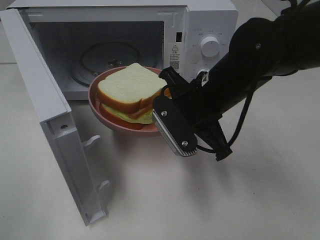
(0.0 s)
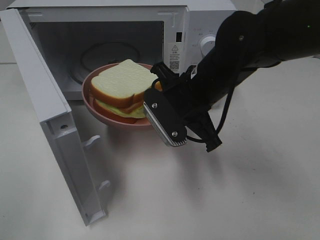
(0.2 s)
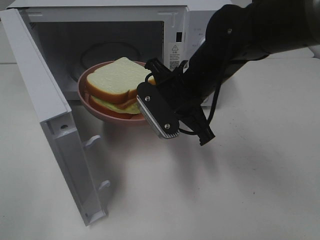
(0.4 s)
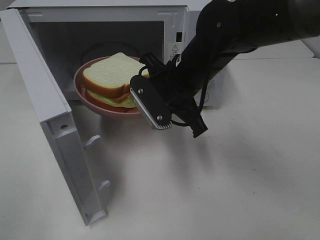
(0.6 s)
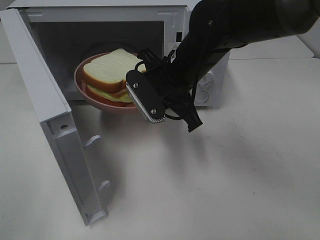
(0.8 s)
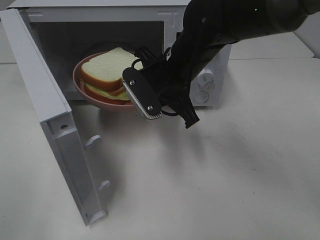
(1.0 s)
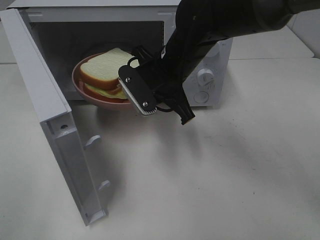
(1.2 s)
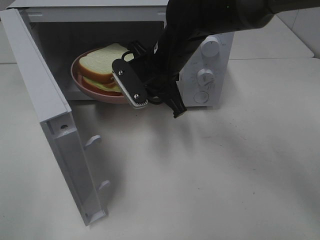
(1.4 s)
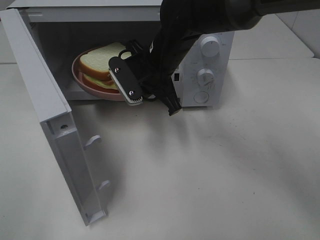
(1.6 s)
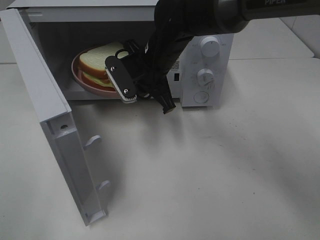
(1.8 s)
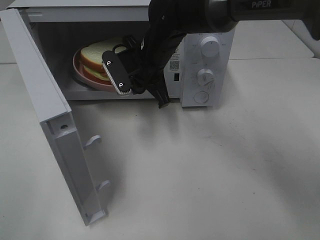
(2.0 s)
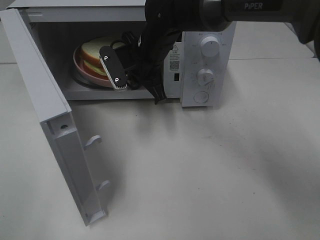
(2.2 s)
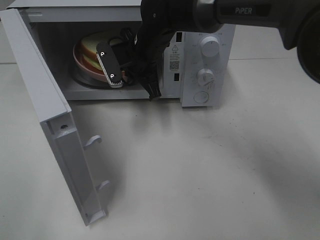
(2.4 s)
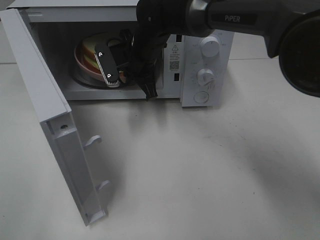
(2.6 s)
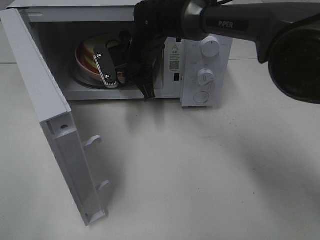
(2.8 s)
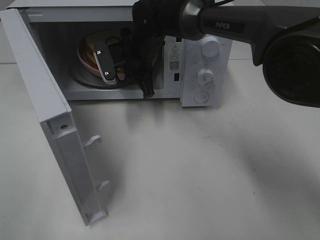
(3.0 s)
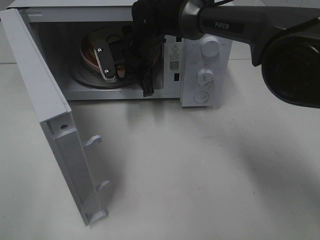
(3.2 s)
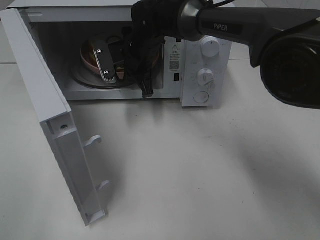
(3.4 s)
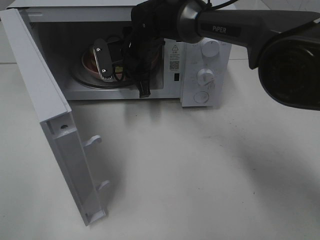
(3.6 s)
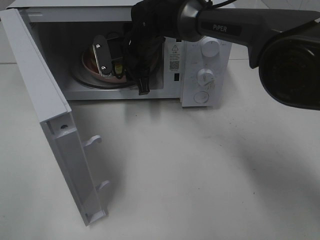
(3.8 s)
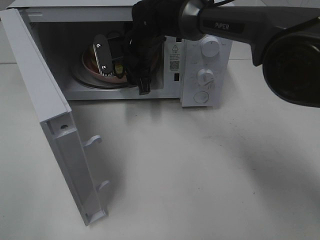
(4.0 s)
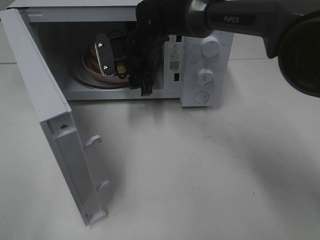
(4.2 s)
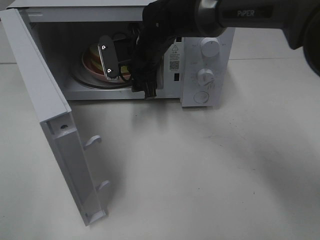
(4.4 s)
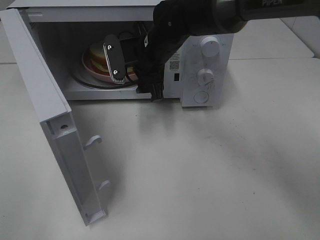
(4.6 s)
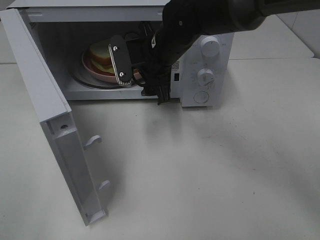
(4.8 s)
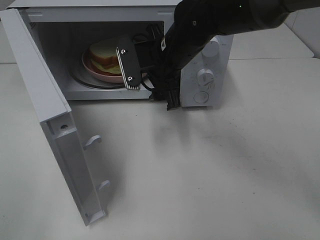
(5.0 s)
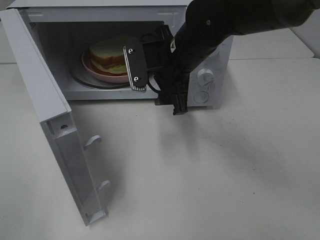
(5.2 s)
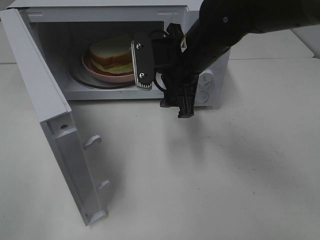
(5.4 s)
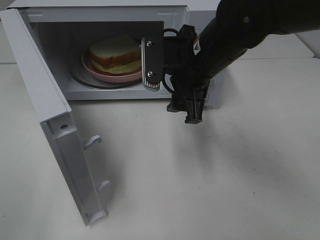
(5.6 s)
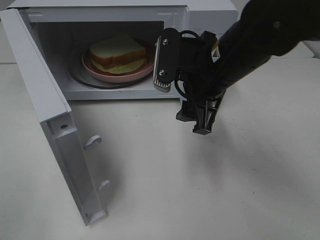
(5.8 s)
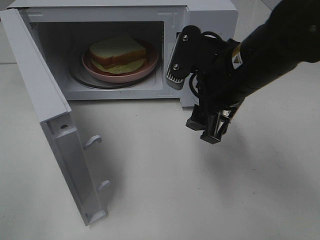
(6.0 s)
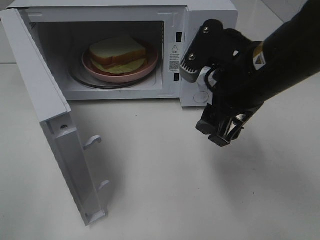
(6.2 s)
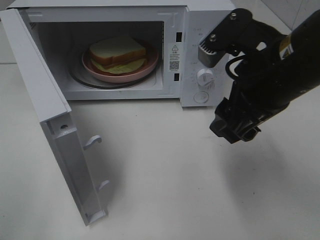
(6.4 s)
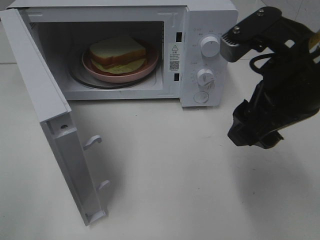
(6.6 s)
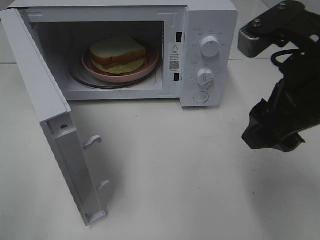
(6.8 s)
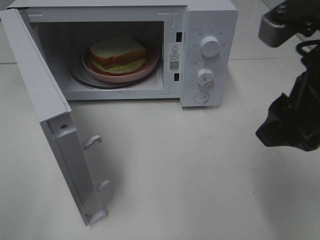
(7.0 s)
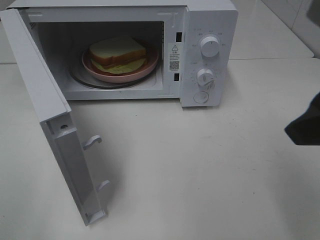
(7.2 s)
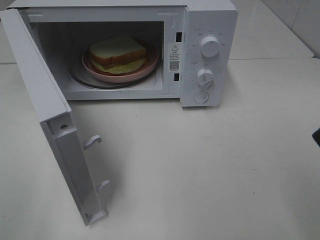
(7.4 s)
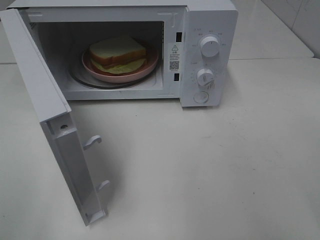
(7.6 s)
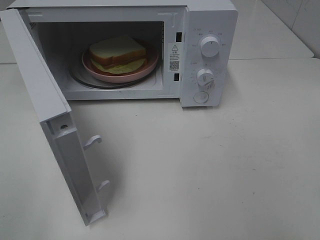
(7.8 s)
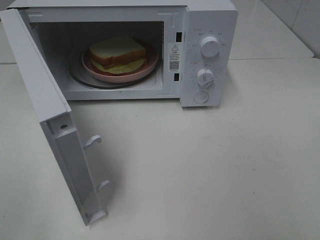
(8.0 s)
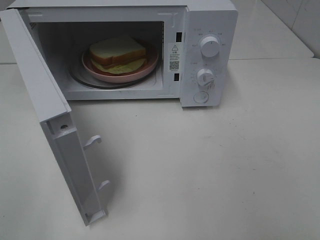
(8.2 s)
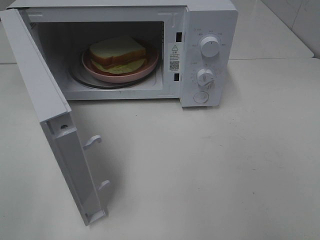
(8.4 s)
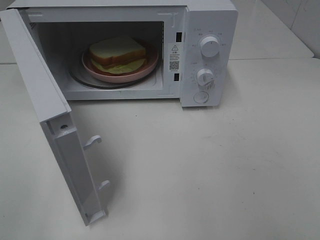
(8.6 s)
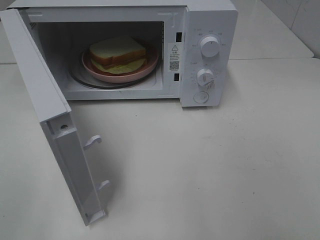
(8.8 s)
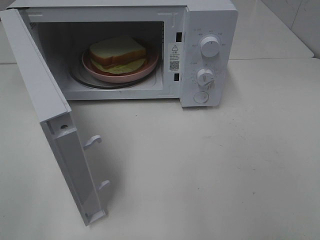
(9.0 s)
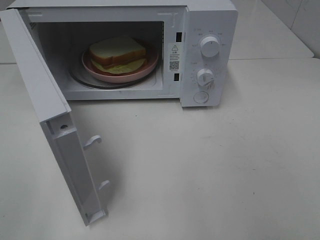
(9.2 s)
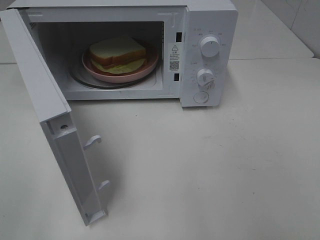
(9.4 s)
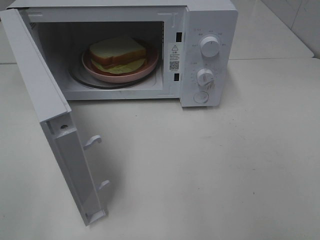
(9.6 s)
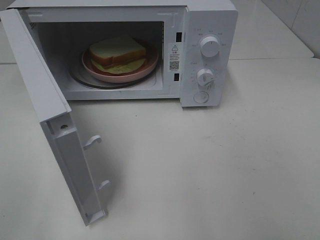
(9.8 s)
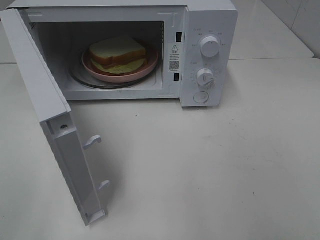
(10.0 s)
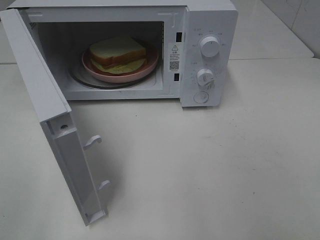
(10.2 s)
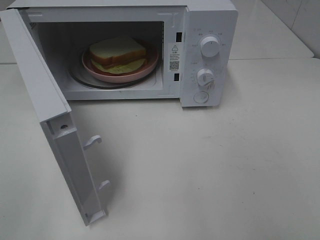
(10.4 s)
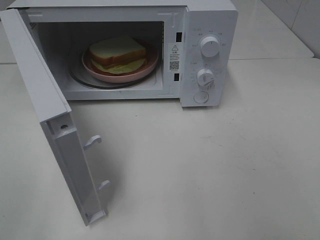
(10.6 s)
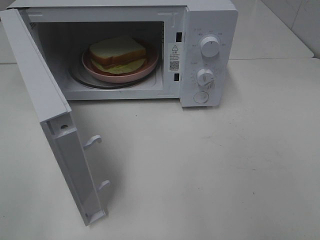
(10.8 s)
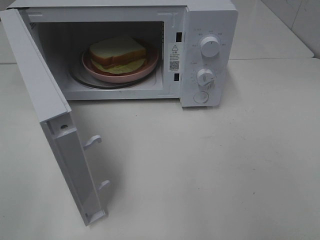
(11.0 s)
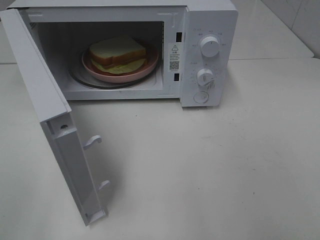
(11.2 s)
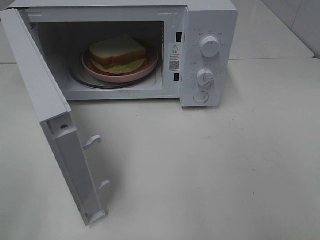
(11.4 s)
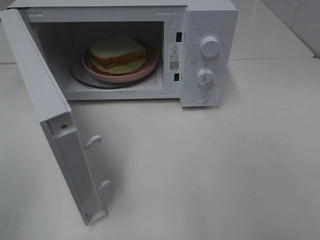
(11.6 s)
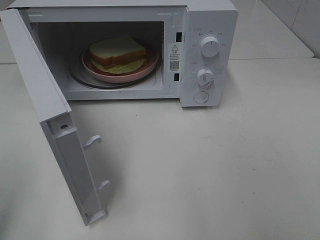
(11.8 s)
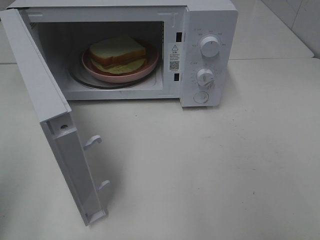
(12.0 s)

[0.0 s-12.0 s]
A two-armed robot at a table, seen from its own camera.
Task of the whole recording: Heat Sandwich.
Step, 0.0 to 3.8 s: Right hand: place the plate in the microwave.
0.0 to 1.6 s: The right gripper heads forward and to the left, covering approximately 10 cm.
1.6 to 3.0 s: The right gripper goes about 5 cm forward.
3.0 to 4.4 s: The right gripper opens.
4.4 to 6.0 s: The right gripper travels backward and to the right by some 20 cm.
6.0 to 7.6 s: The right gripper goes about 25 cm backward, to the right and upward.
9.0 to 10.4 s: Both grippers stay about where they are.

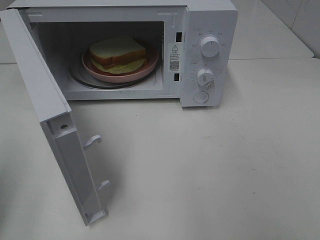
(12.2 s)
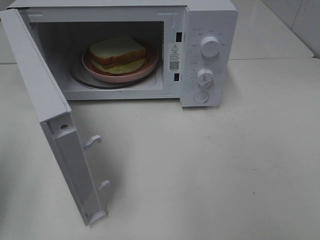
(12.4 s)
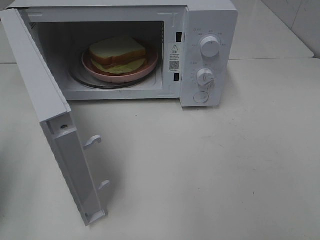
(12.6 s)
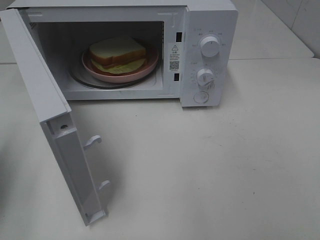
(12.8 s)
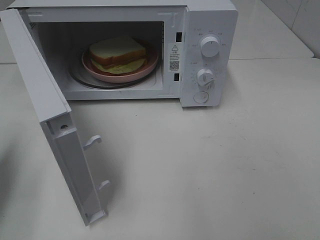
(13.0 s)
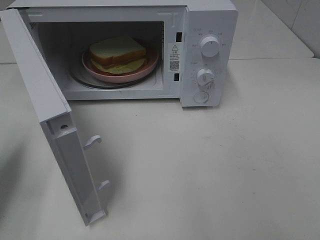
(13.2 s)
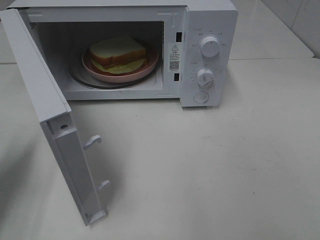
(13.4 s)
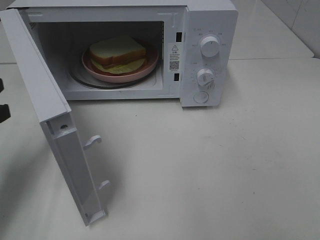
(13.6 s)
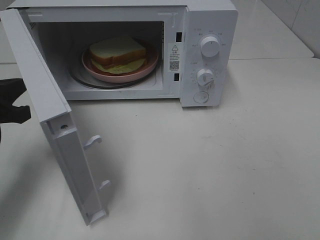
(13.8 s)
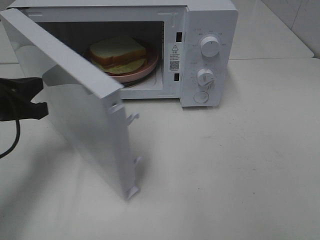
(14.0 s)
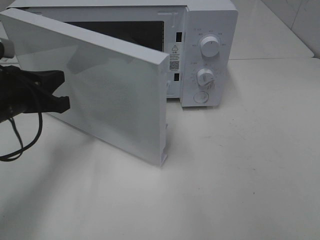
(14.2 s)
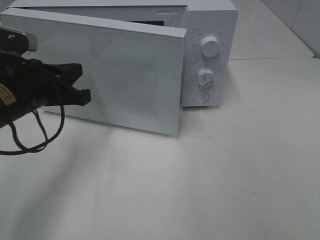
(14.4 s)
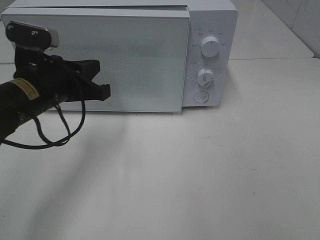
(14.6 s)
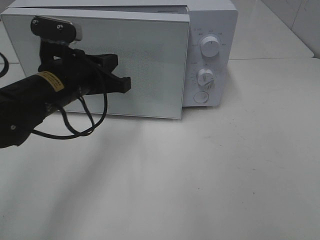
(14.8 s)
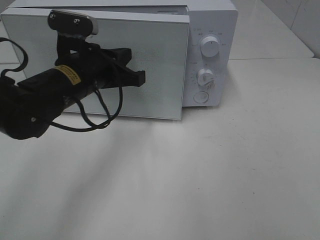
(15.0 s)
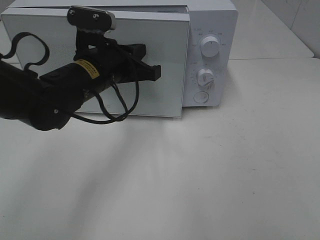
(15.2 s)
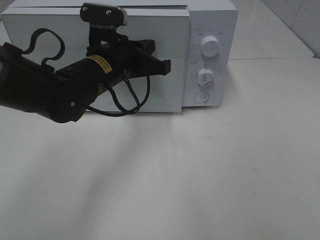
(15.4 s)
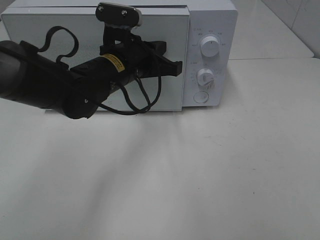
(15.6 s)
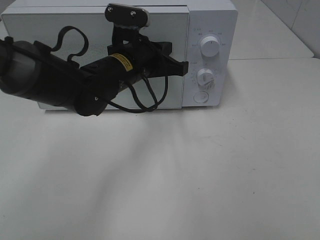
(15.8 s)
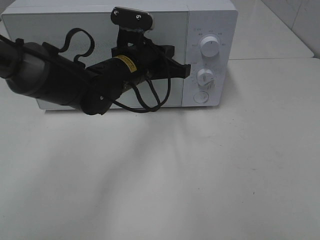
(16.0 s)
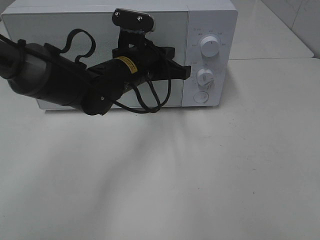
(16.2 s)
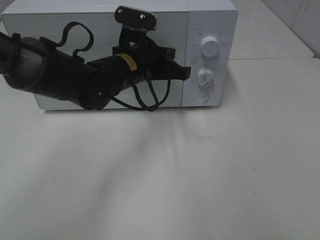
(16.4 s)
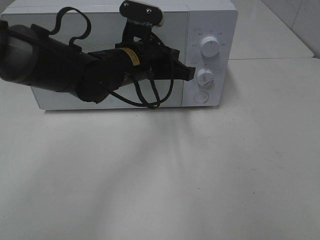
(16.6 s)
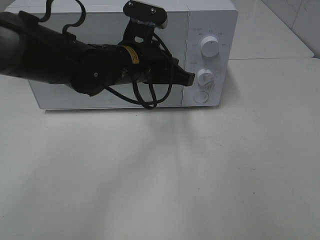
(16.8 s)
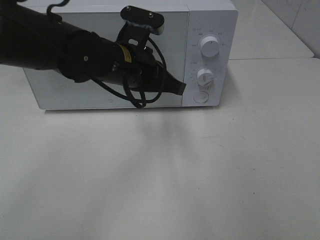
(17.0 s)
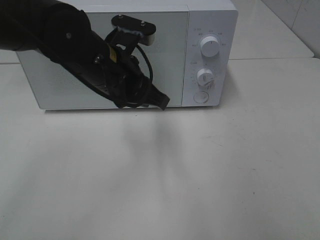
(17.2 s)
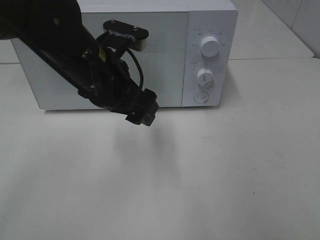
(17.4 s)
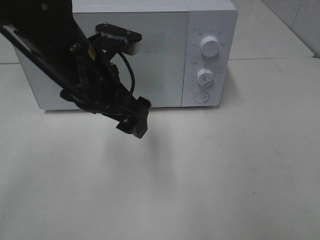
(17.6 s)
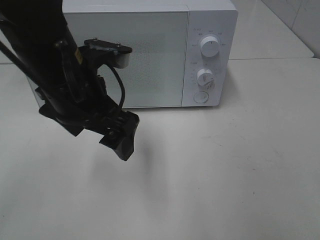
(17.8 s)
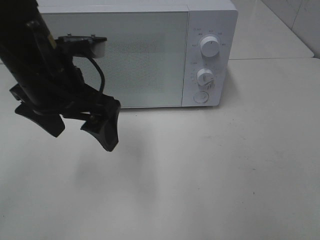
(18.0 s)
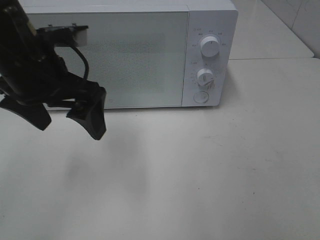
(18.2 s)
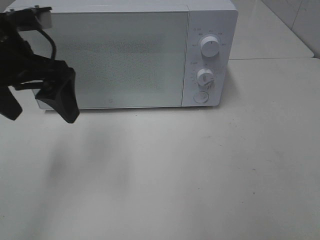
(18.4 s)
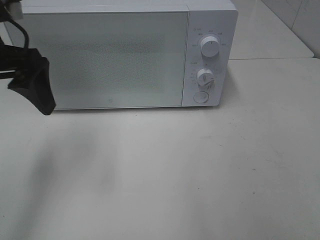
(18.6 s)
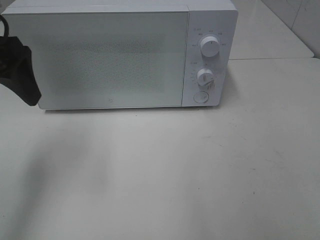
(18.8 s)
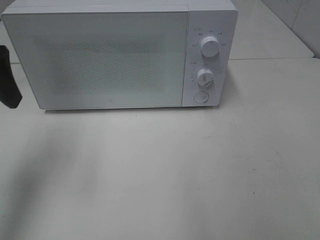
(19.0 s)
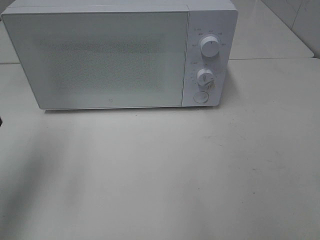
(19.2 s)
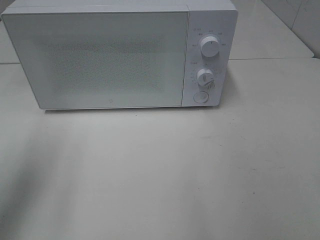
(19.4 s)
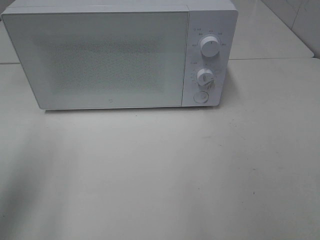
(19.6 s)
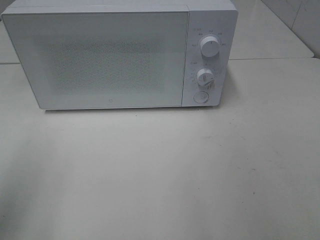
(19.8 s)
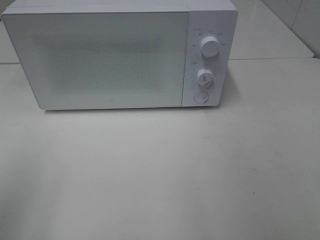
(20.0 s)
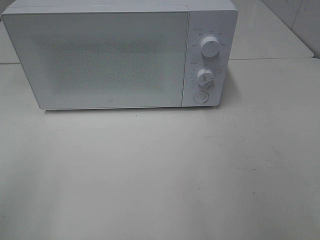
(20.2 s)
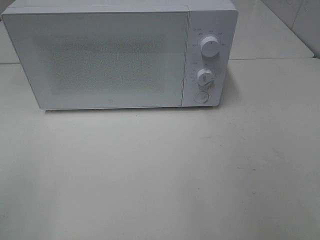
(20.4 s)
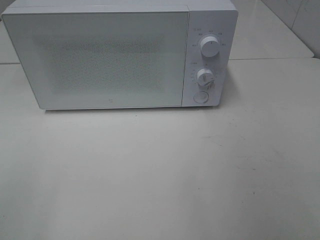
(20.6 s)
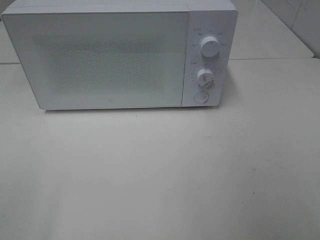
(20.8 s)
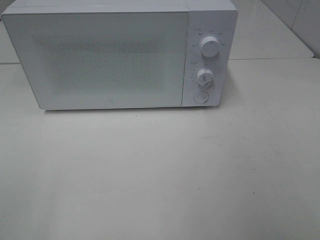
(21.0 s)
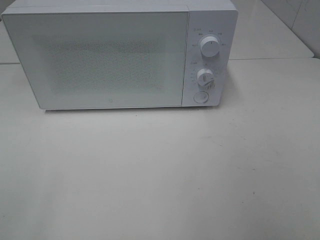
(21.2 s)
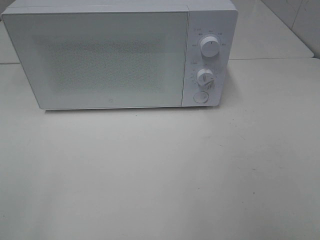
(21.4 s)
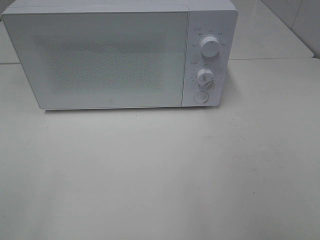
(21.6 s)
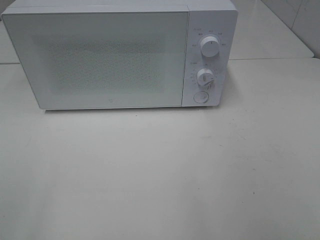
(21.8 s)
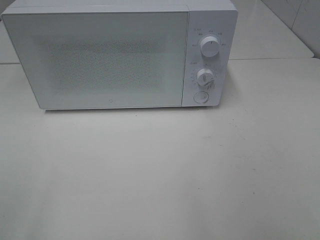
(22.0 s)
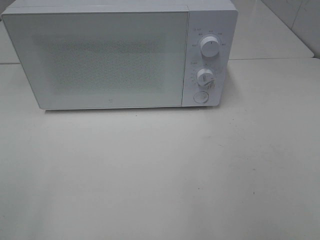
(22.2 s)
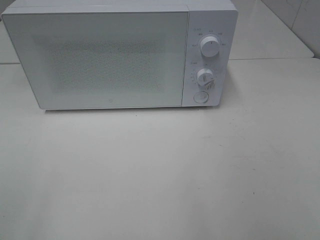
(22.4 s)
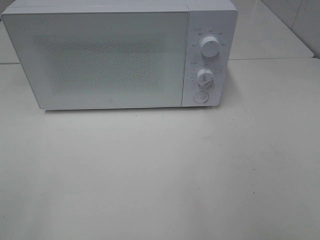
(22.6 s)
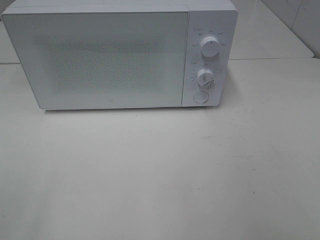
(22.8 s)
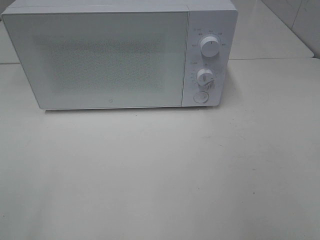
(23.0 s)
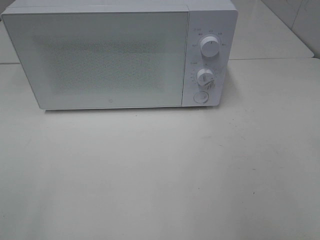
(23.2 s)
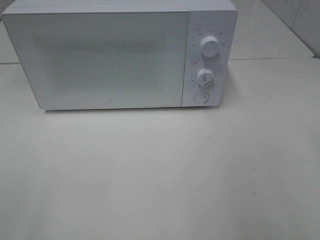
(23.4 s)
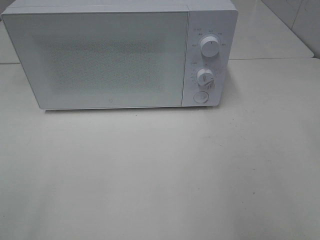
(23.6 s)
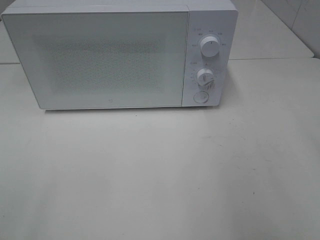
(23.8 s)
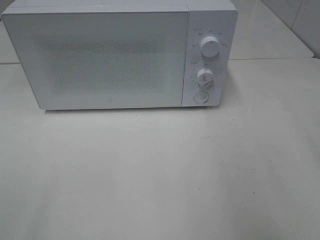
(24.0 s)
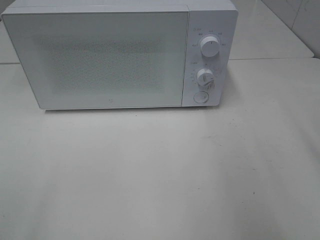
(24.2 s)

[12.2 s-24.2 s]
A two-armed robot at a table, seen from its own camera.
Task of the whole recording: Heat Sandwich.
Step, 12.2 to 17.0 s: Left hand: close the microwave door.
12.2 to 13.8 s: The left gripper shifts about 15 cm forward, downward and to the right.
13.8 to 15.2 s: The left gripper travels to the right and forward by approximately 20 cm.
15.2 to 16.6 s: The left gripper heads to the right, covering roughly 5 cm.
16.6 to 18.2 s: The left gripper shifts some 15 cm to the left, upward and backward, and opens its fingers.
18.2 to 19.8 s: The left gripper travels backward and to the left by about 20 cm.
19.8 to 21.2 s: The left gripper is displaced backward by approximately 15 cm.
21.2 to 22.6 s: Both grippers stay about where they are.
